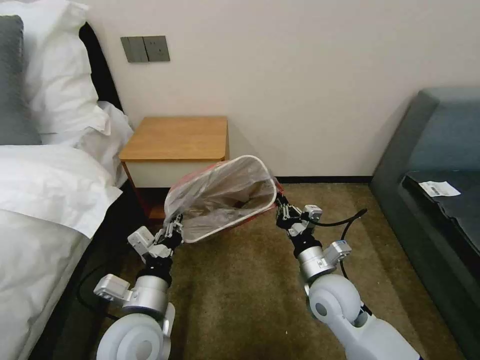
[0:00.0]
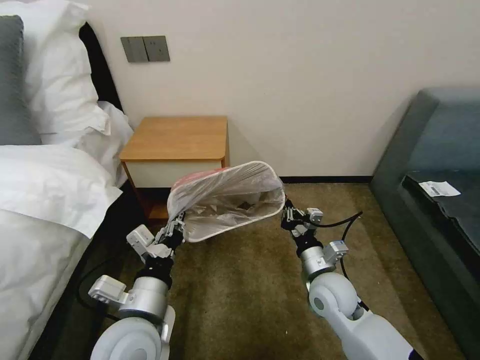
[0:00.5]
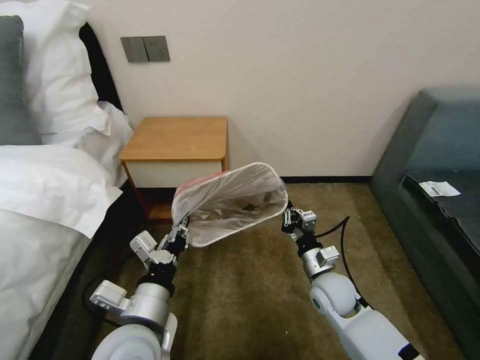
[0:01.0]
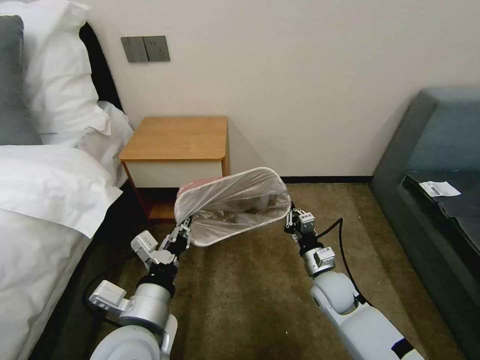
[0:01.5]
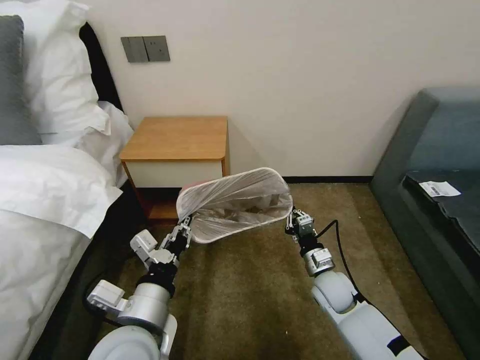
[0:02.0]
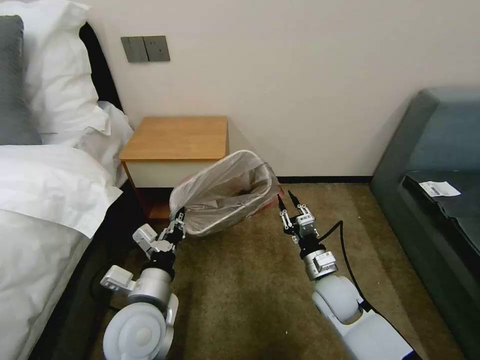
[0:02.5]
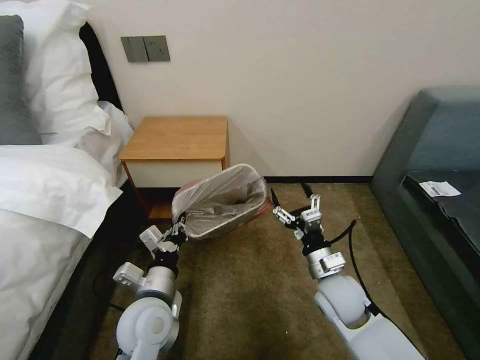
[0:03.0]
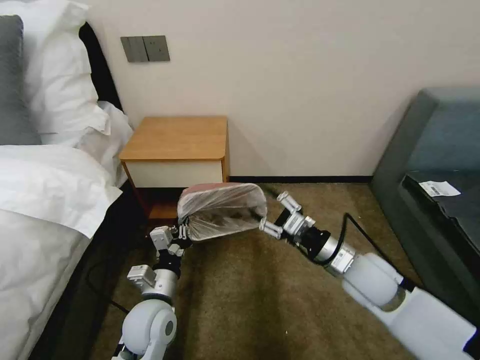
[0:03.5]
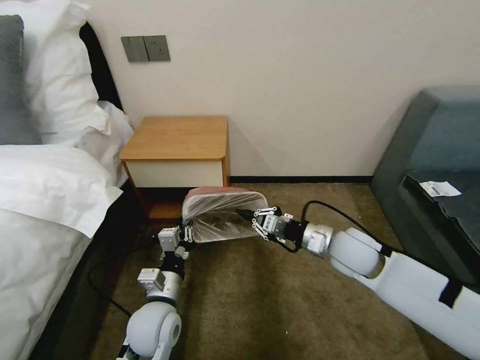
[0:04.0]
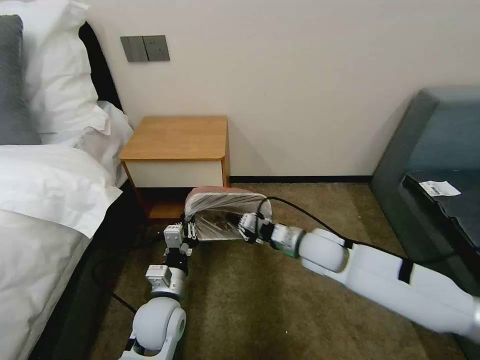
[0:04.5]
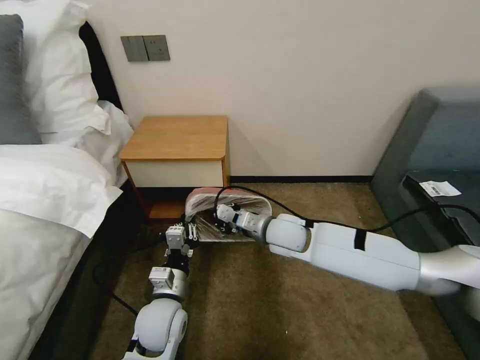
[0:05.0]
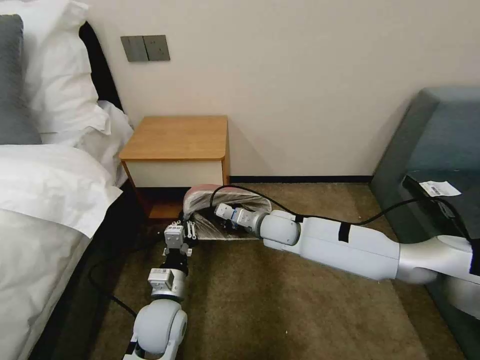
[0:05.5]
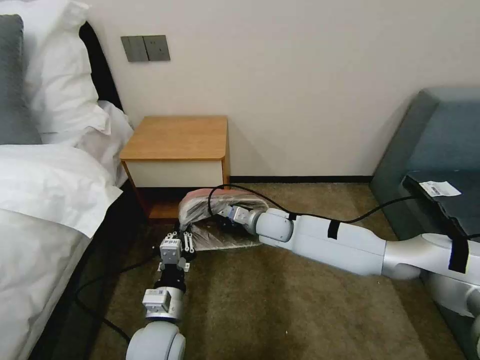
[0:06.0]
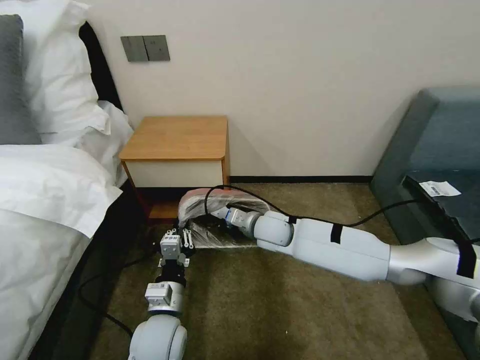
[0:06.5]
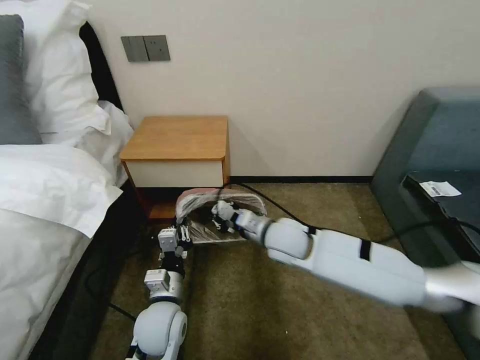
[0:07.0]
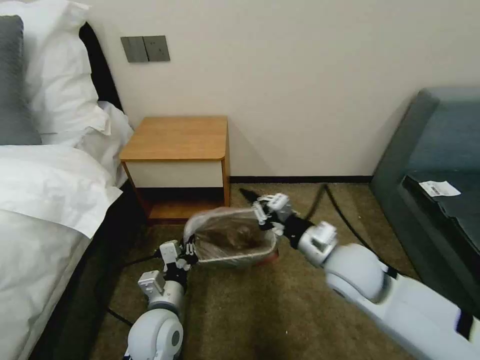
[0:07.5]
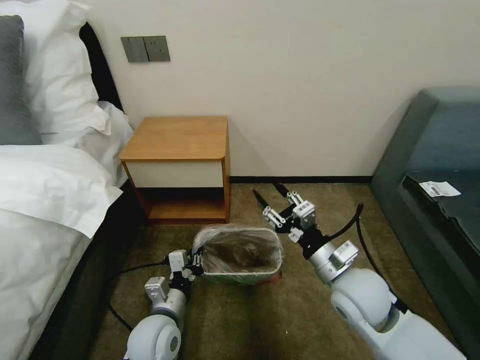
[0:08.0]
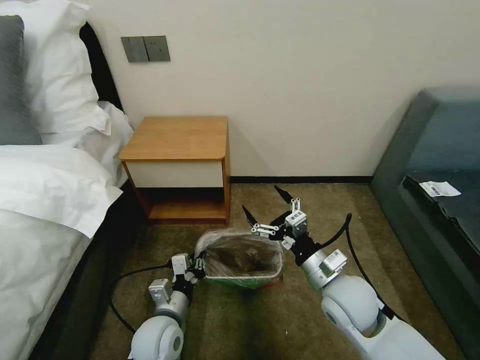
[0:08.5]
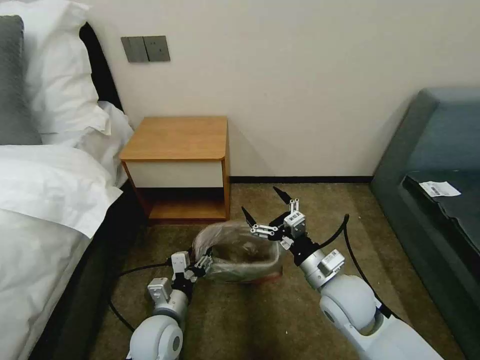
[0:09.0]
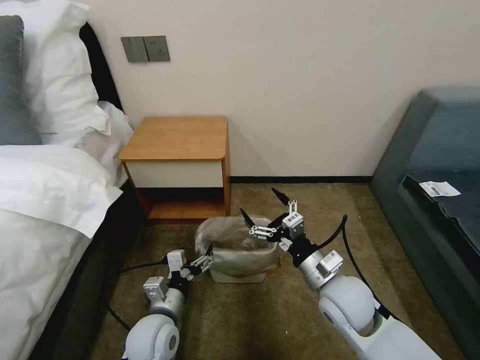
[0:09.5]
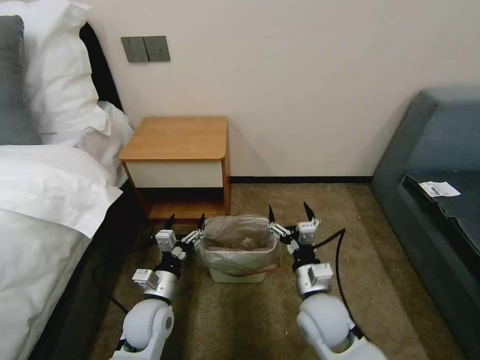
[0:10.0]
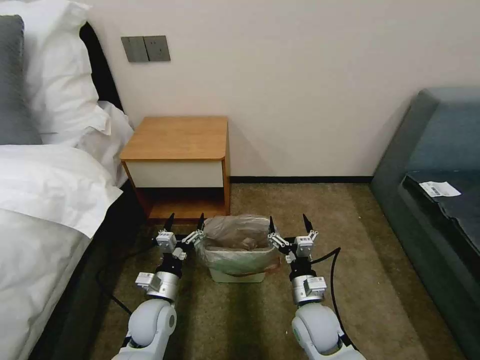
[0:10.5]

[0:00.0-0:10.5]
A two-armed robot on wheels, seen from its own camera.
Task of the whole recording: Pick up the garbage bag from the table and place it over the trash can.
0:00.0 to 0:02.0: The right gripper moves downward, some 10 cm.
0:02.0 to 0:04.0: The left gripper moves downward and forward, roughly 15 cm, while the right gripper travels upward by some 15 cm, and opens and closes again.
0:04.0 to 0:06.5: The right gripper travels to the left and forward by roughly 20 cm.
0:06.5 to 0:08.5: The right gripper heads backward and to the right, covering some 20 cm, and opens its fingers.
0:08.5 to 0:10.5: The left gripper moves about 5 cm, and opens its fingers. The right gripper travels downward by roughly 10 cm.

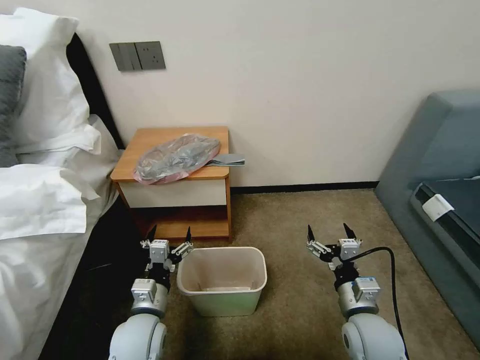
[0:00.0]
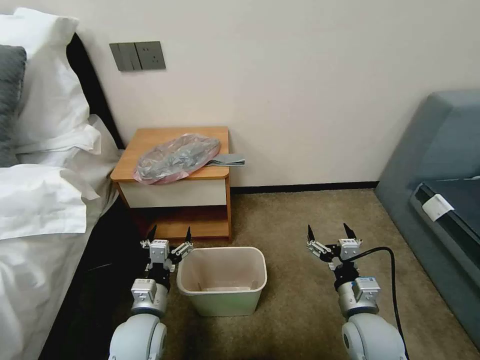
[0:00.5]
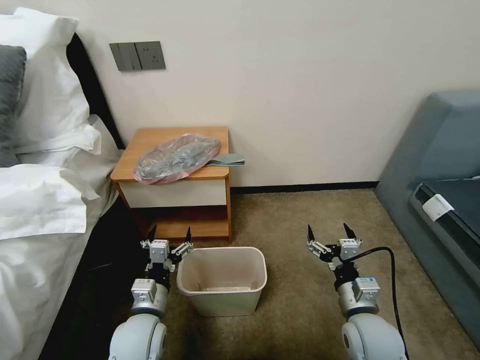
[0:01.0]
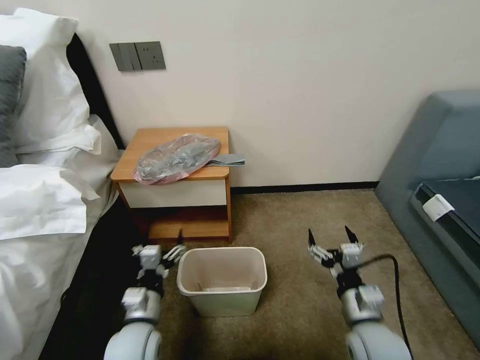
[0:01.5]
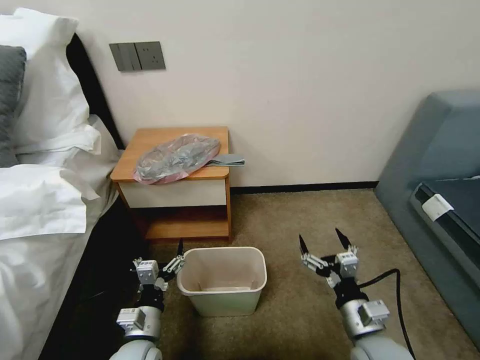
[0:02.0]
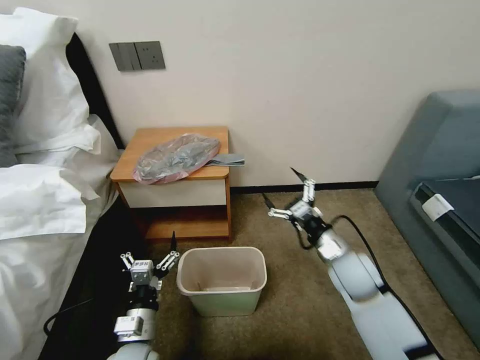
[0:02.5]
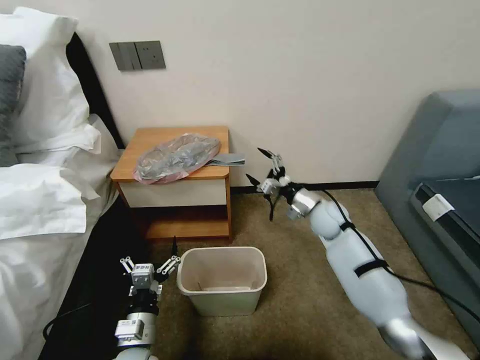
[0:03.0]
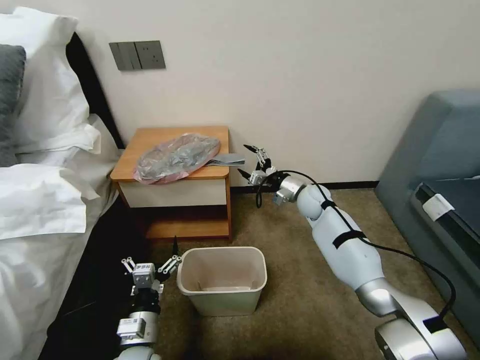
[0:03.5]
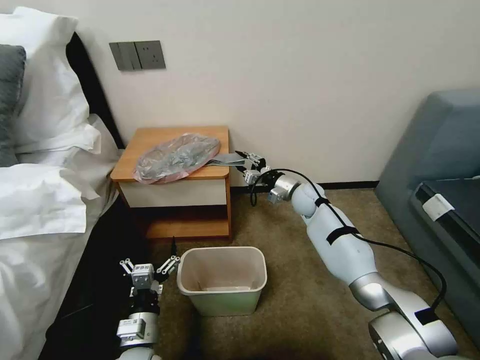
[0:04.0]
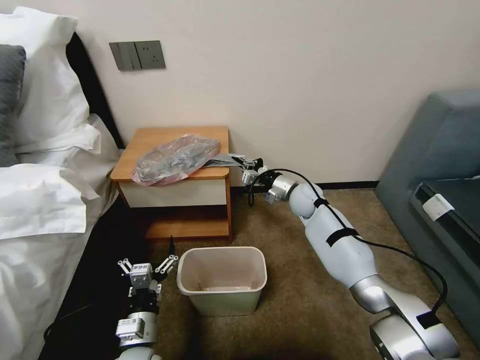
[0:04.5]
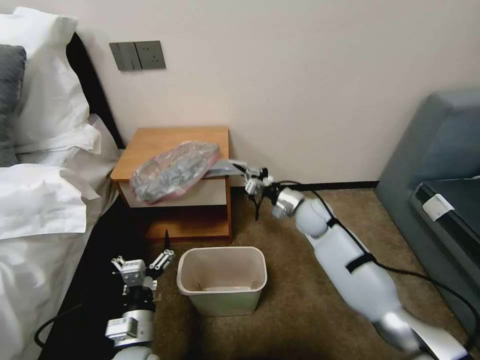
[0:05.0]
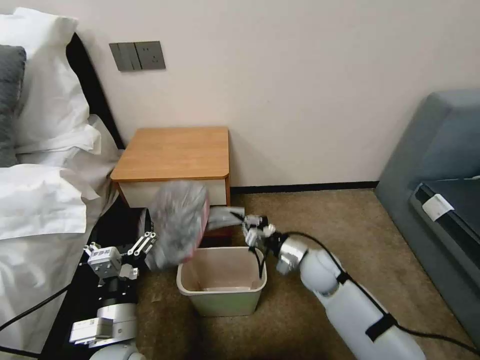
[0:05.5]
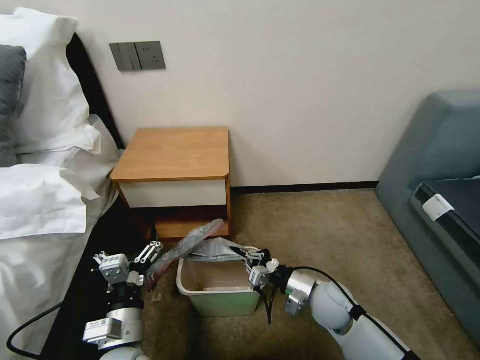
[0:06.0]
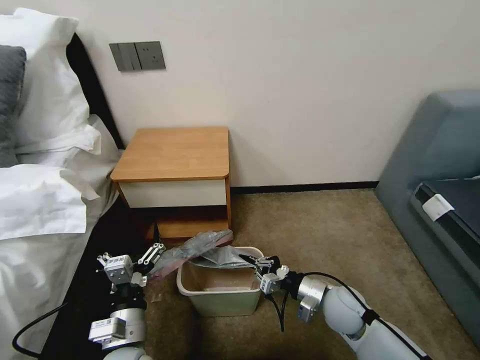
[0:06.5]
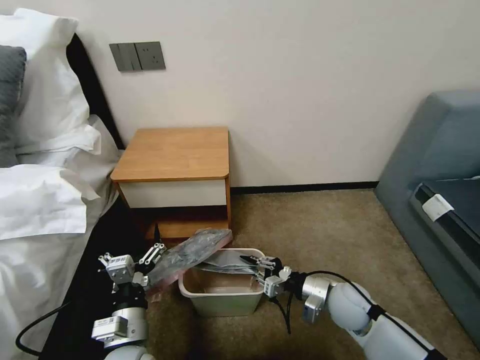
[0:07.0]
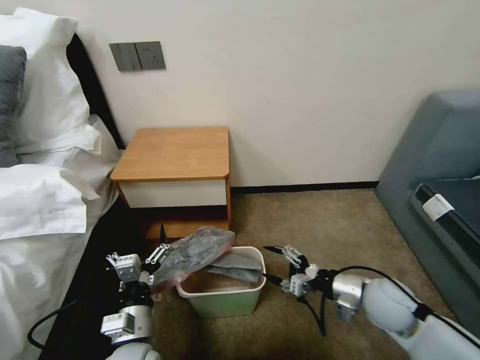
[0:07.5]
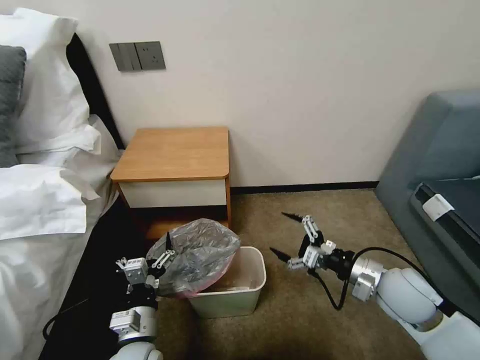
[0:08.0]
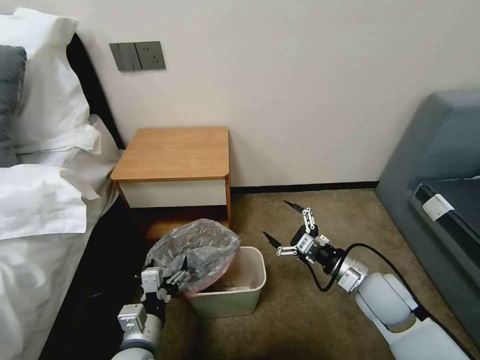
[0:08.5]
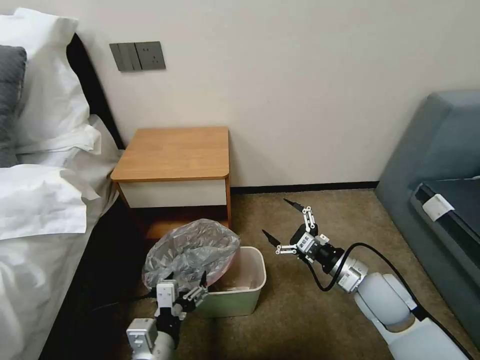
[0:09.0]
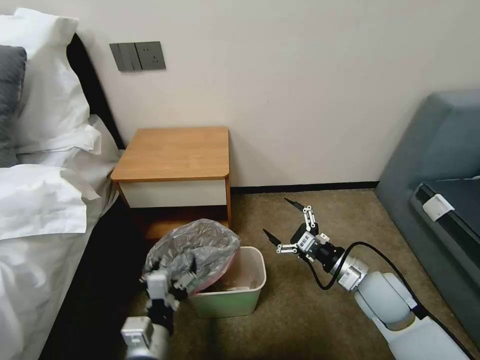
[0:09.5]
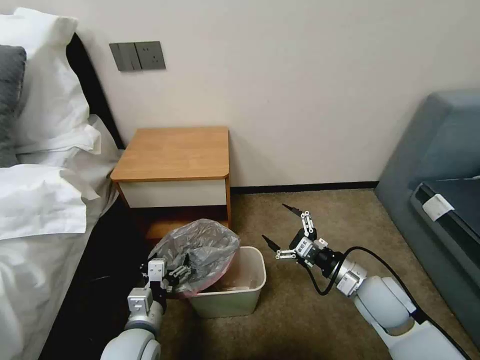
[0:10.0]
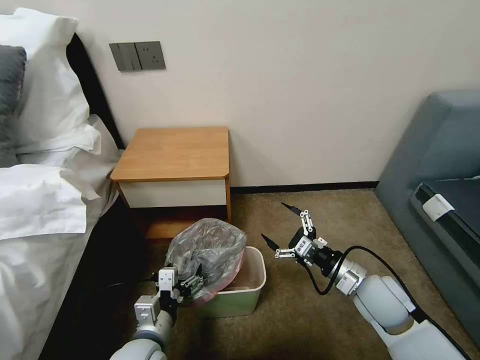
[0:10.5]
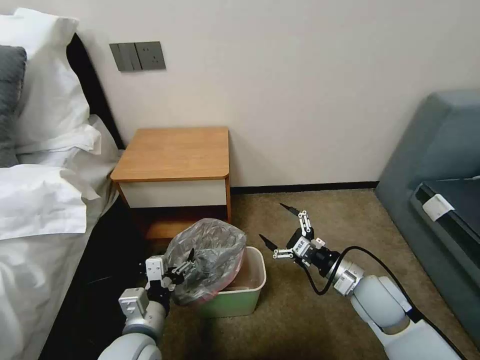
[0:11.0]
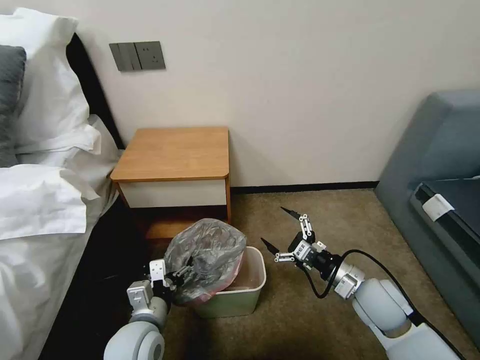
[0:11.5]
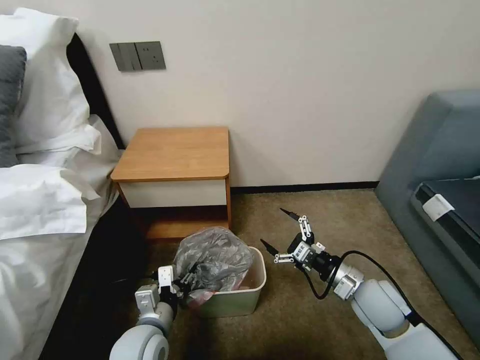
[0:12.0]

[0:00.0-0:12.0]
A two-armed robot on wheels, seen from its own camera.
Task of the whole recording: Pick up the garbage bag from the table and place it over the trash can.
0:02.0 to 0:04.0: The right gripper goes approximately 40 cm forward, and closes up.
0:04.0 to 0:06.0: The right gripper travels backward by roughly 25 cm, and closes. The left gripper moves upward, roughly 5 cm.
0:06.0 to 0:08.0: The left gripper goes some 5 cm downward, while the right gripper travels to the right and upward by approximately 15 cm, and opens its fingers.
0:10.0 to 0:12.0: The left gripper closes.

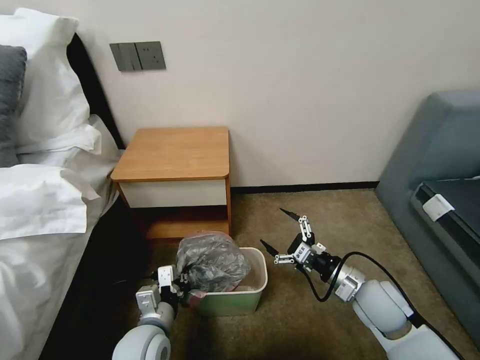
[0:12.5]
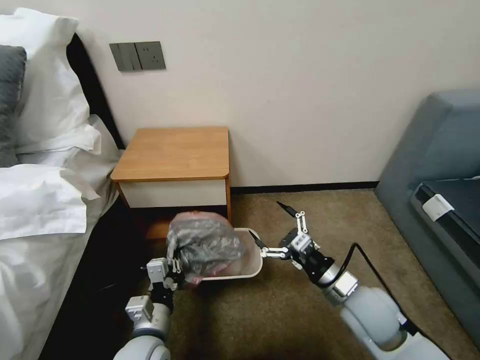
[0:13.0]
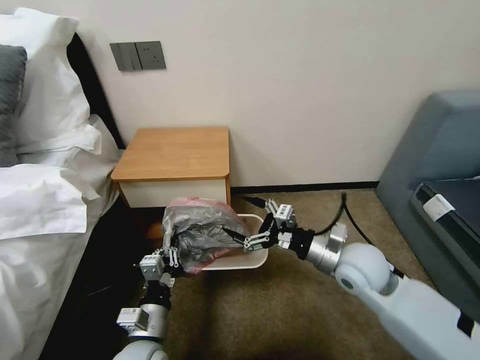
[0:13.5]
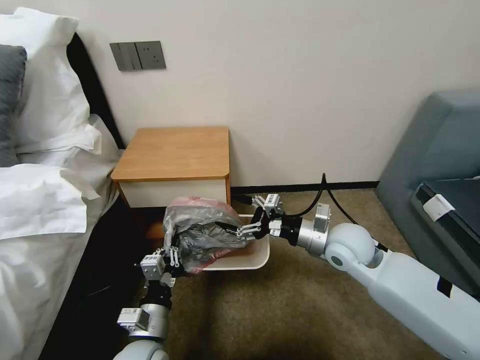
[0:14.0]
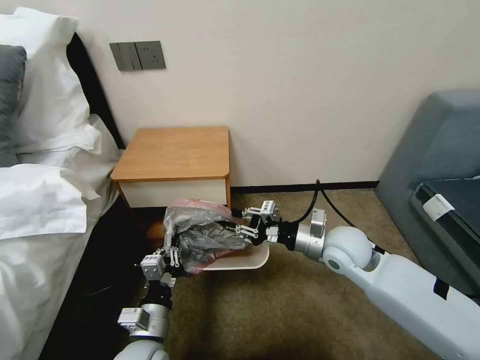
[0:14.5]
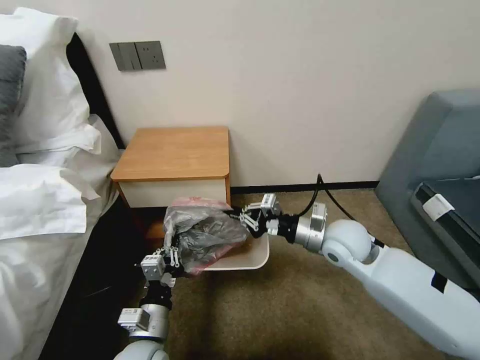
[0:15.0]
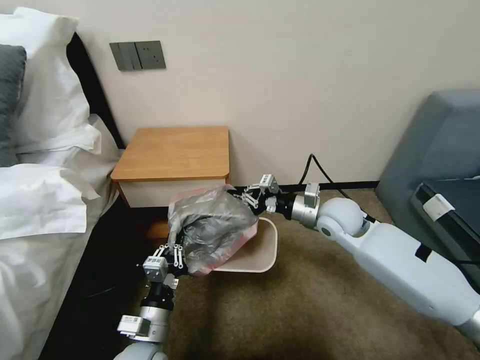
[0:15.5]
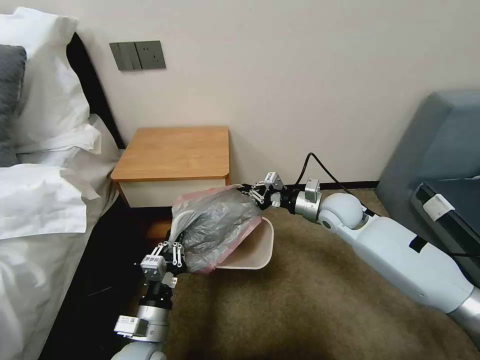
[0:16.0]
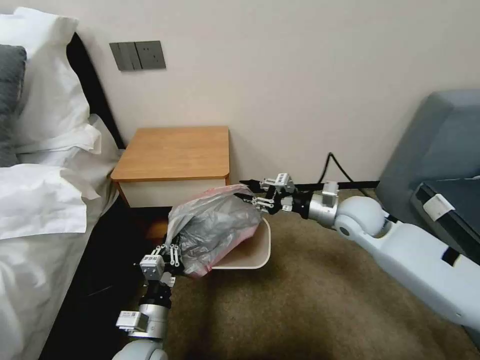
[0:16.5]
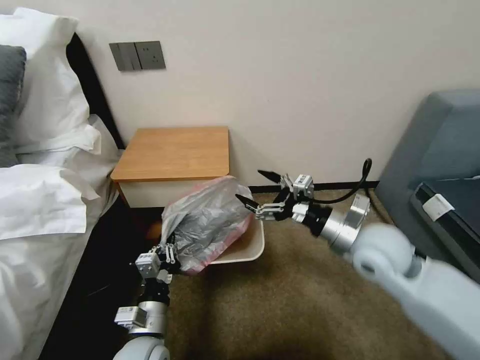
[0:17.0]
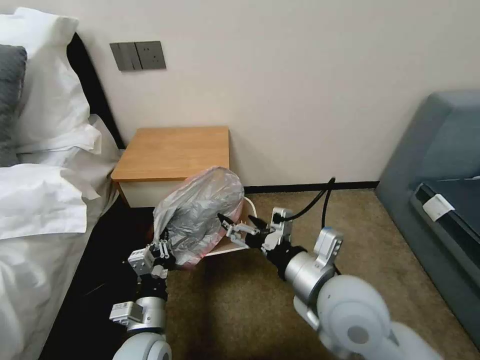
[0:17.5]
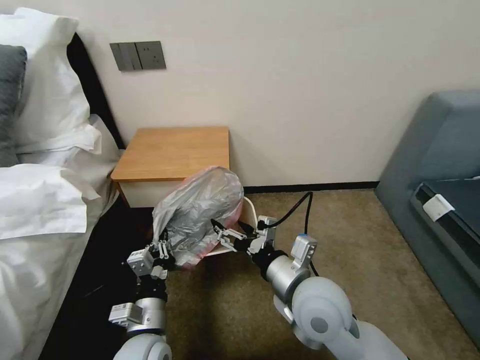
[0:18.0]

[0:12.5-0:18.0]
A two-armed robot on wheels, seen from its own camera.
Task of the whole recording: Pick up the garbage bag from the table and place it over the trash can.
0:12.5 to 0:14.5: The right gripper is displaced forward, upward and to the left by about 15 cm, and closes.
0:14.5 to 0:16.0: The right gripper travels forward by roughly 10 cm.
0:16.0 to 0:18.0: The right gripper shifts approximately 25 cm backward and to the left, and opens up.
